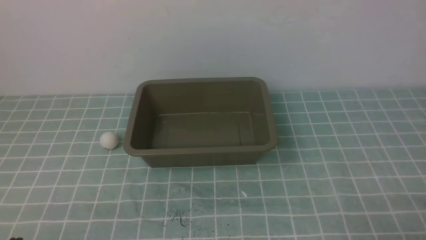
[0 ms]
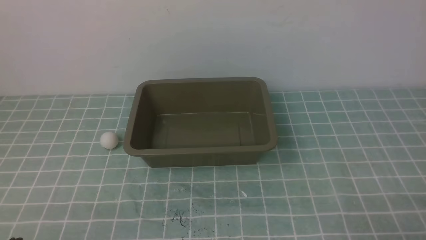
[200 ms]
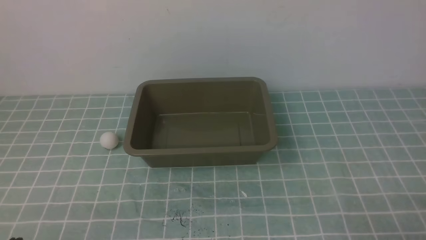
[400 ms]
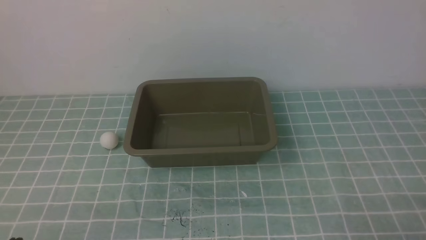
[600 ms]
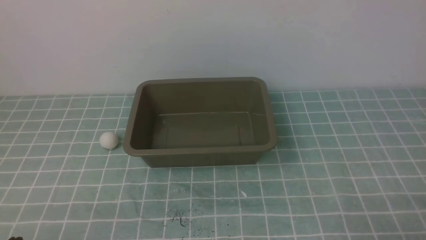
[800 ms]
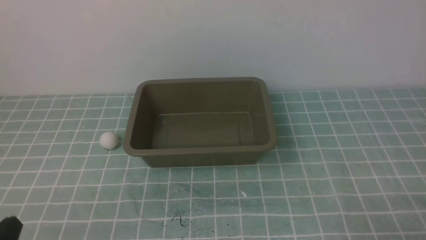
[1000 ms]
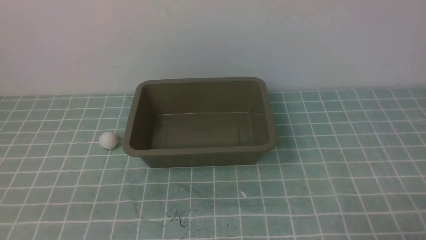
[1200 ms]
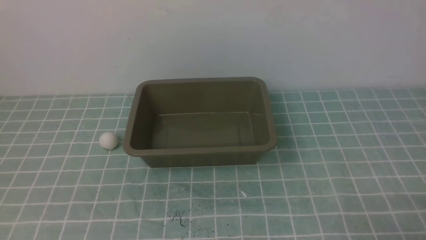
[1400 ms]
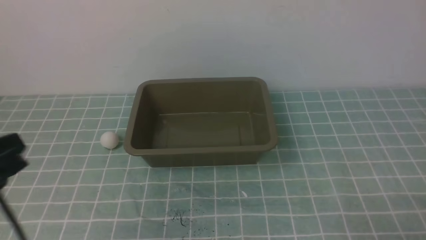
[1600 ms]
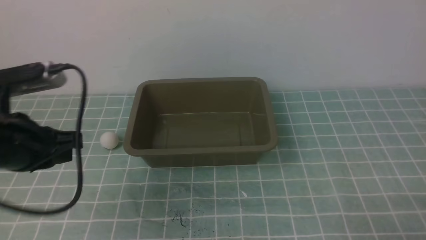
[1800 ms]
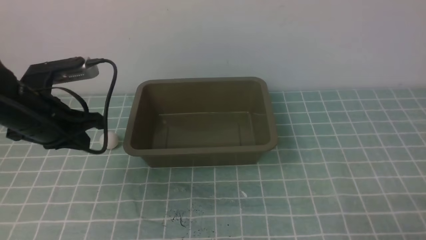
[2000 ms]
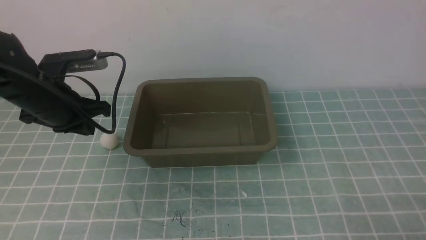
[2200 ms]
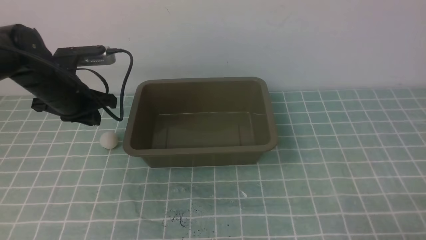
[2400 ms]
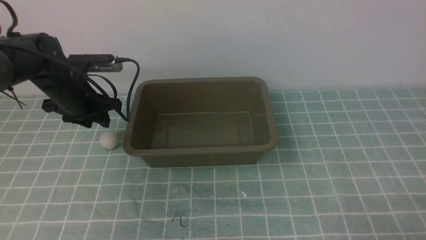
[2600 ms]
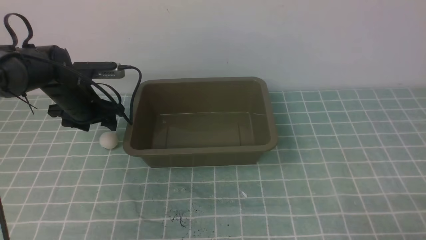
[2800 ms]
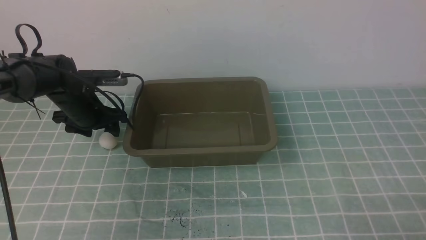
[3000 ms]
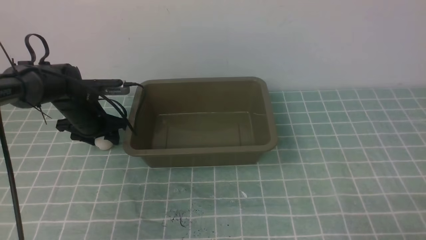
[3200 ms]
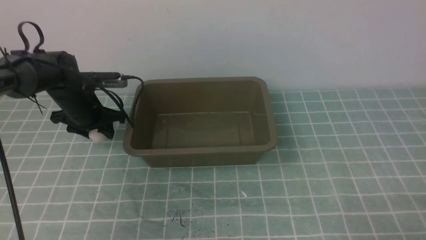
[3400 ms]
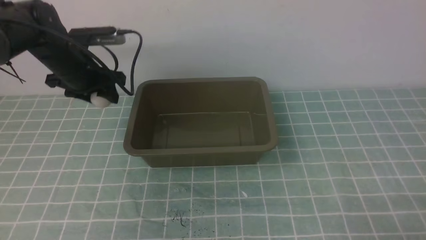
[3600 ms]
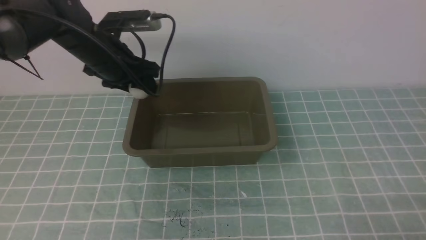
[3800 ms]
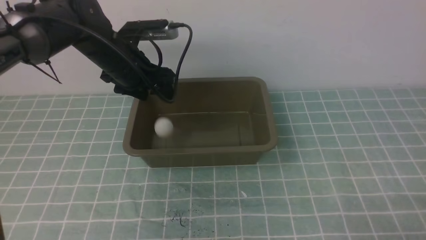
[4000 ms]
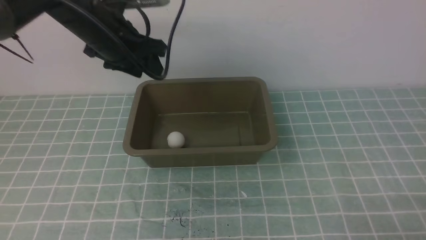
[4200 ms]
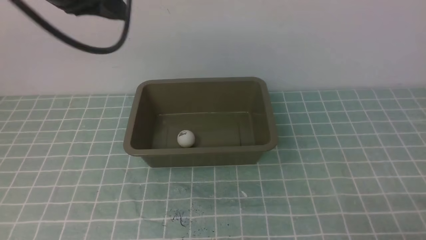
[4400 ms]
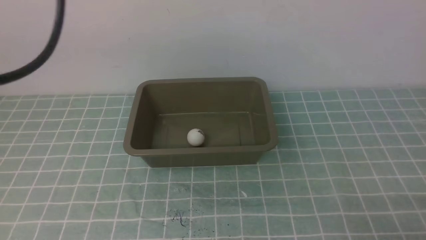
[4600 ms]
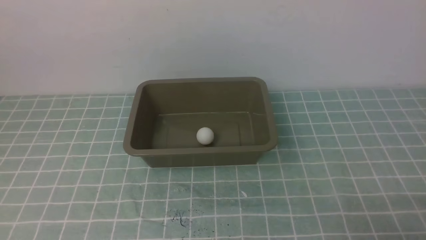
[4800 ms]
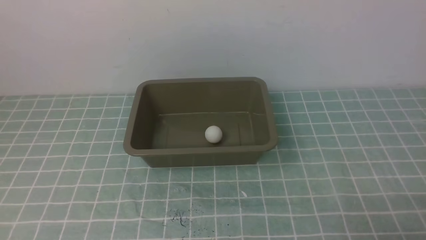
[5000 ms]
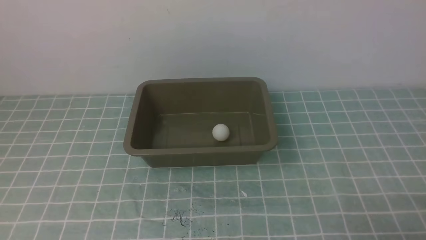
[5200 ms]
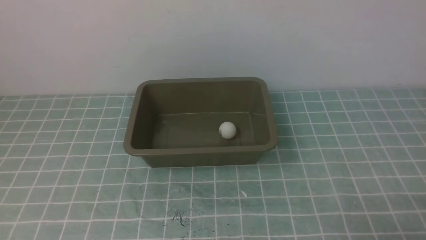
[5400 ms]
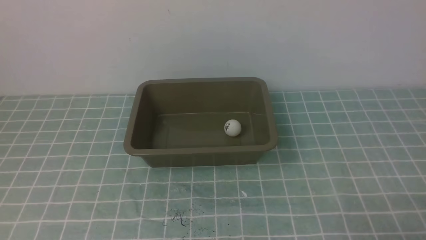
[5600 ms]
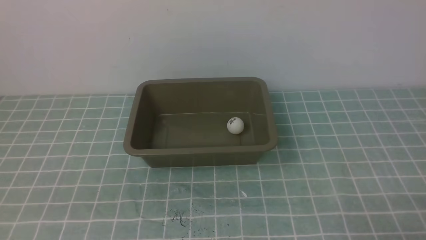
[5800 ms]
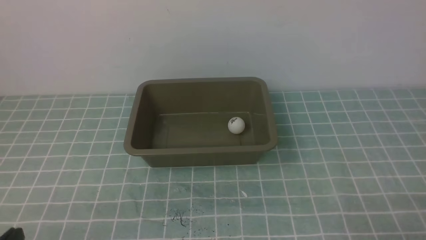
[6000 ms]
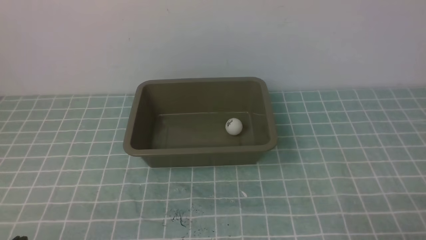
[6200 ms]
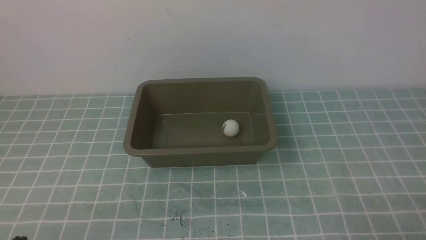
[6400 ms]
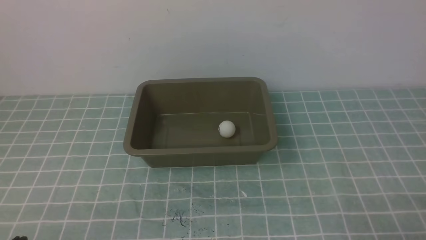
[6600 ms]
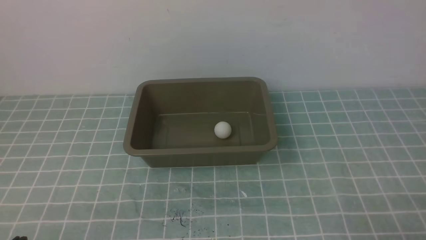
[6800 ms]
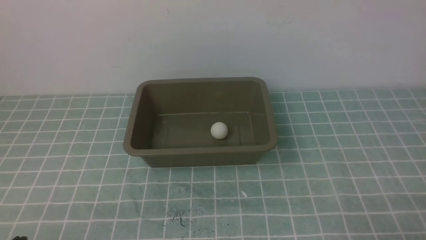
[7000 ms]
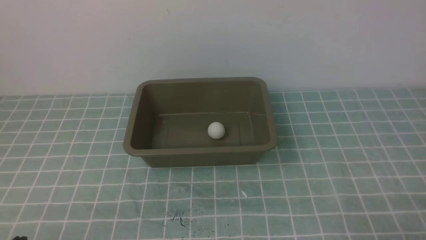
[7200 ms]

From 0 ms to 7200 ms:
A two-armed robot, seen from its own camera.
Step, from 0 ms to 3400 ms: use the left arm to clamp the table tennis ball closest to it.
Step, from 3600 ms to 4200 ms: use the left arm to put the table tennis ball into the box.
From 1400 ms to 2800 ms: The left gripper is displaced forward by some 35 cm, and opens.
From 2800 ms to 4400 ms: The left gripper is displaced upward by roughly 20 cm, and closes up.
From 4400 ms to 5800 ms: The left gripper heads backward, covering roughly 30 cm.
